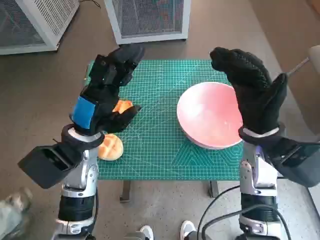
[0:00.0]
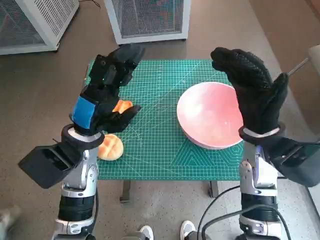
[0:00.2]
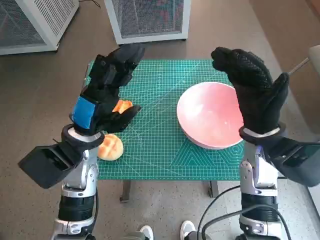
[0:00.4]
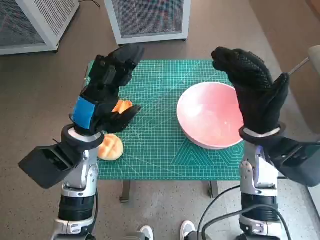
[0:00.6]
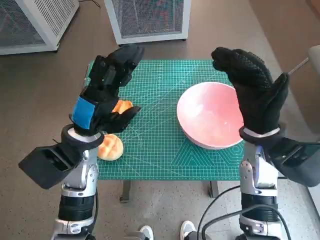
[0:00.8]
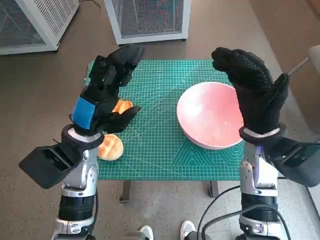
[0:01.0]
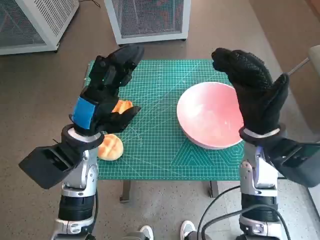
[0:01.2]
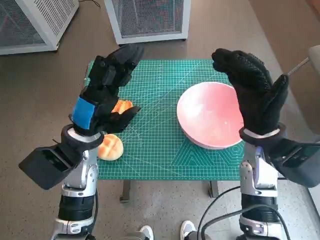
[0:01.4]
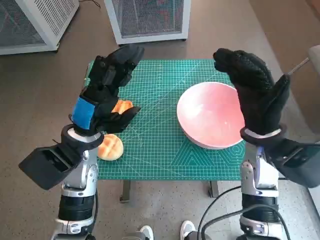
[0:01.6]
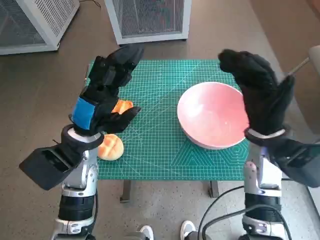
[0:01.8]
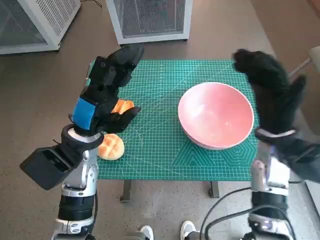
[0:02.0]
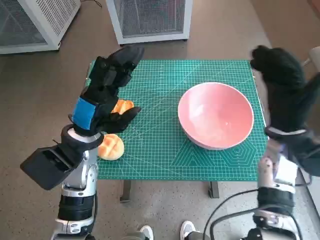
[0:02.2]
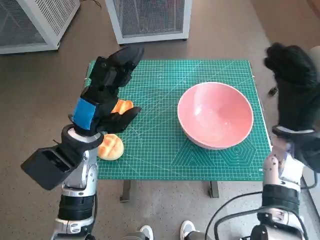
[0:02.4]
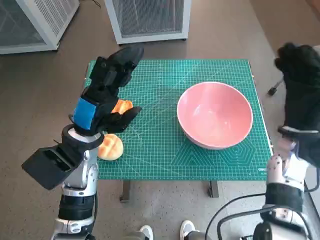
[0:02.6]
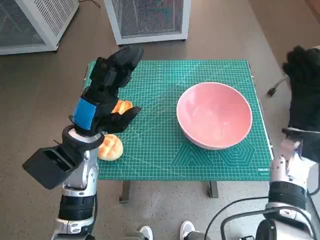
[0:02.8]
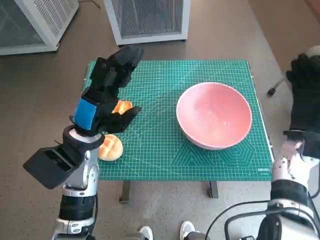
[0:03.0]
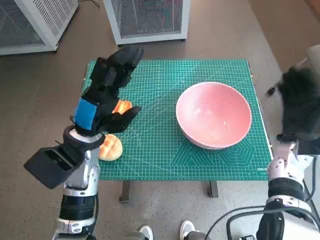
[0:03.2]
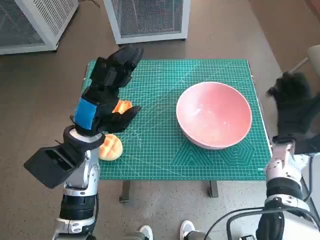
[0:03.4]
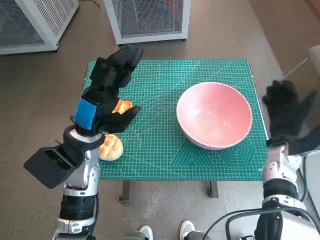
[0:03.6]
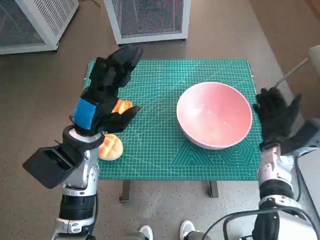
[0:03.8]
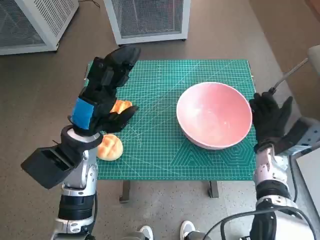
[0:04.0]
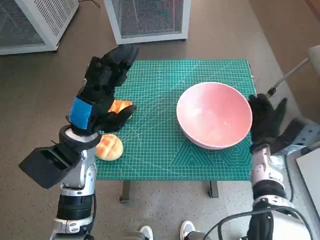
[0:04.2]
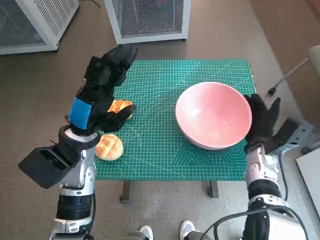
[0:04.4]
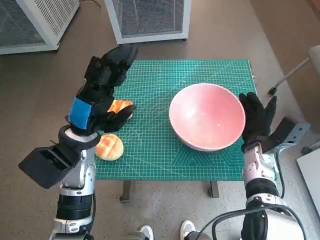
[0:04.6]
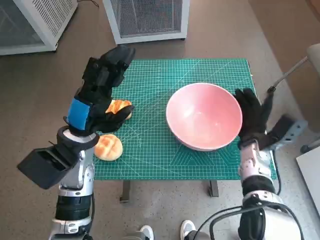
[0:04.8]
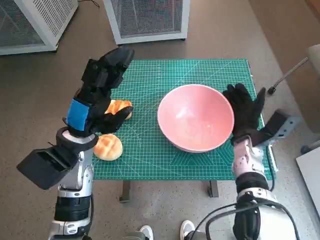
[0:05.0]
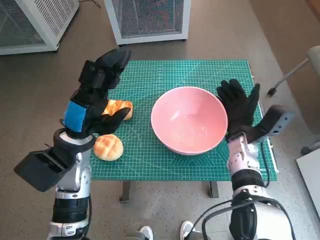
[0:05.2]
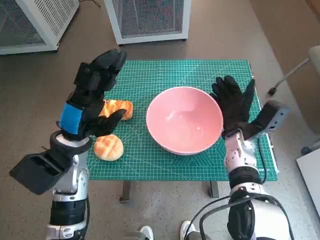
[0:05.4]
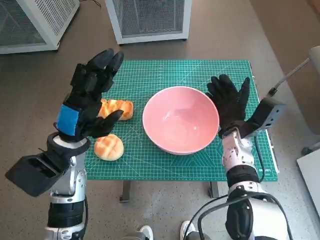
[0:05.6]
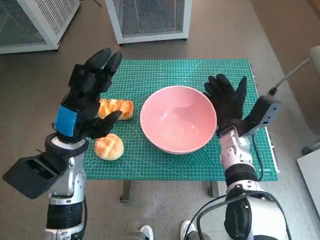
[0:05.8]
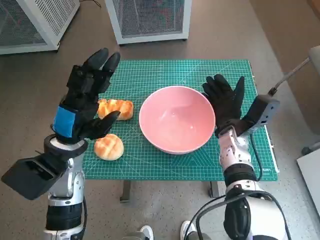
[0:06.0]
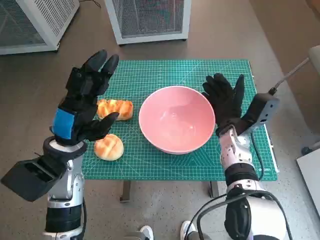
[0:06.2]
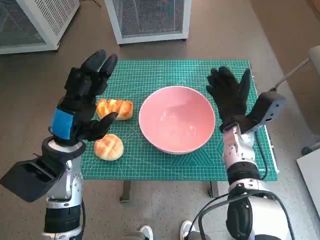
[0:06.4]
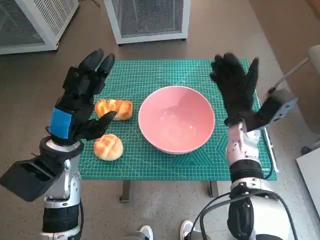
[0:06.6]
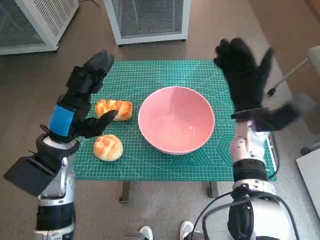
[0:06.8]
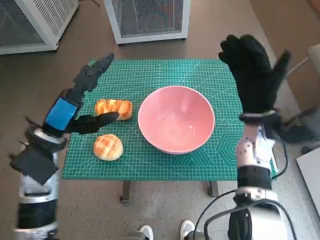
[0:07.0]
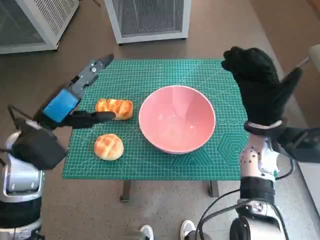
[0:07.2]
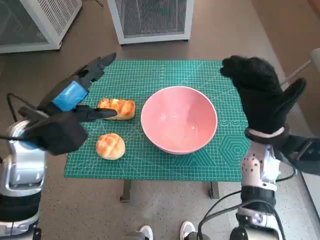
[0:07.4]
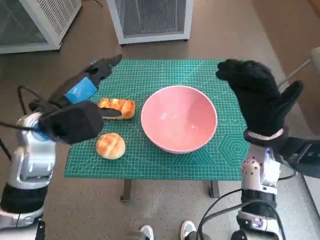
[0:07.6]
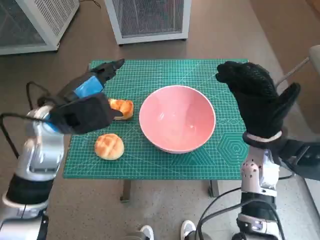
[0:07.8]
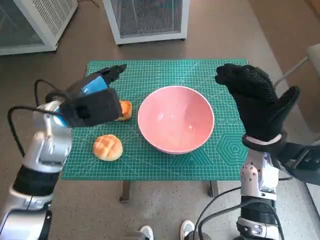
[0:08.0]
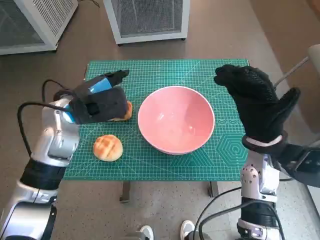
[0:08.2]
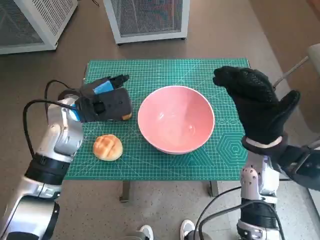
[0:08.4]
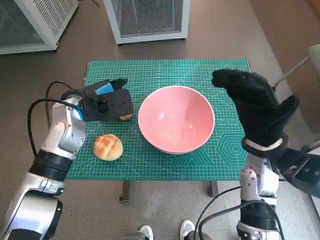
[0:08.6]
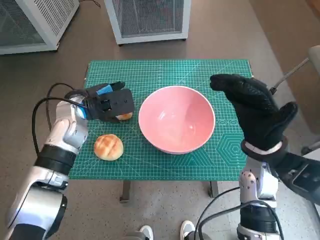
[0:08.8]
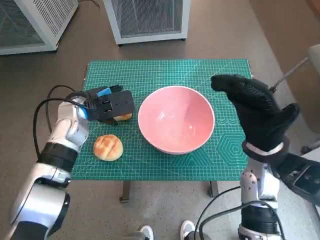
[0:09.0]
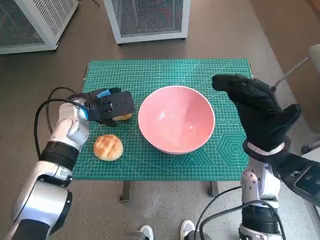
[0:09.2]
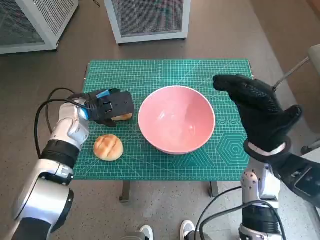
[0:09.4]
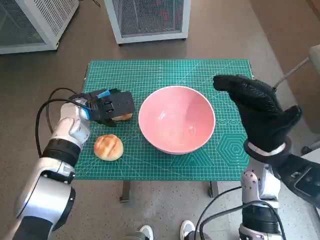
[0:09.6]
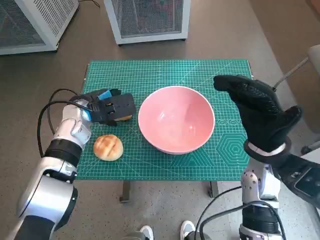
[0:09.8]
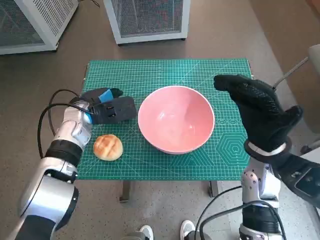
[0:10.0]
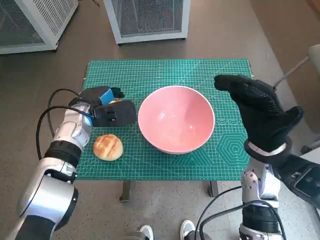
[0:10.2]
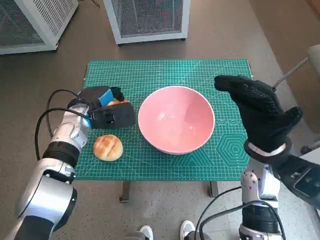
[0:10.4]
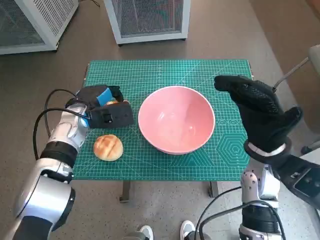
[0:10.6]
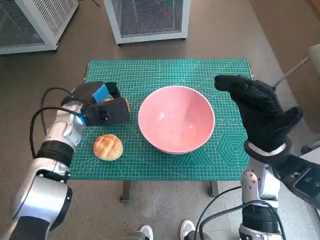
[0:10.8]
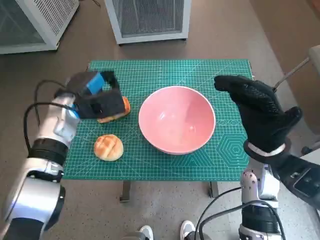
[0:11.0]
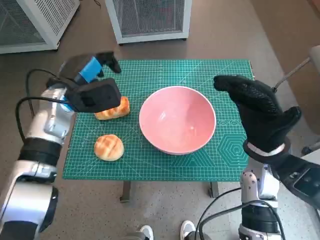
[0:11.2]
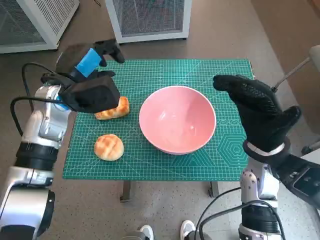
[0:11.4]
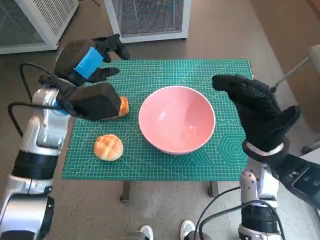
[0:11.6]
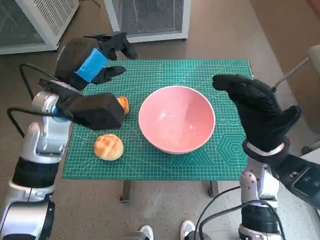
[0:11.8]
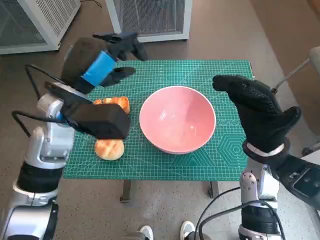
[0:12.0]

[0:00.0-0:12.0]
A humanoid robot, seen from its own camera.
Task of the whole recording: Push the bowl into the center of the table and put the bread into the bowl.
Step, 0:00.0 to 0:06.4: Move the pink bowl to the center of table with right hand.
0:01.6 to 0:03.0: The right hand shifts about 10 cm to the right.
0:03.0 to 0:04.4: The right hand shifts approximately 5 cm downward.
0:04.4 to 0:06.0: The right hand shifts approximately 5 cm to the left.
0:06.0 to 0:07.6: The two hands go some 5 cm upward.
0:07.6 to 0:09.0: The left hand heads forward and downward, covering about 10 cm.
0:09.0 to 0:10.4: The hands move only a little.
0:10.4 to 0:12.0: The left hand is displaced upward and backward by approximately 15 cm.

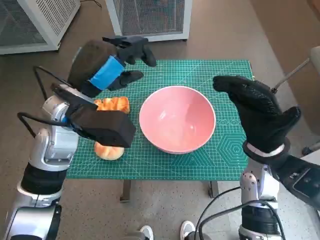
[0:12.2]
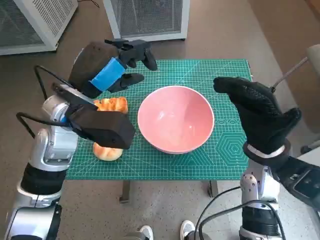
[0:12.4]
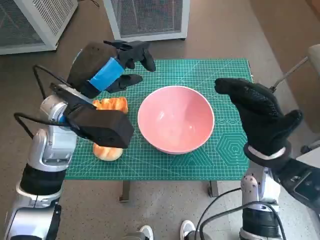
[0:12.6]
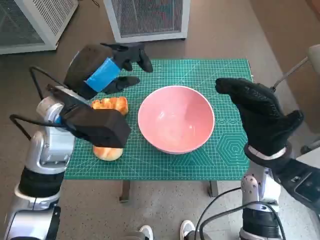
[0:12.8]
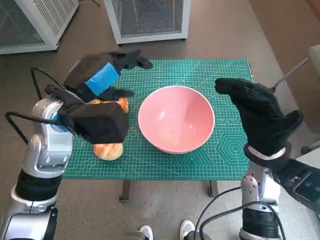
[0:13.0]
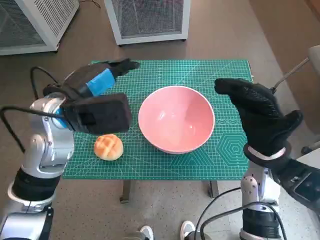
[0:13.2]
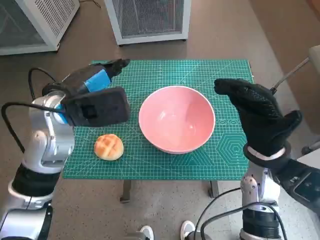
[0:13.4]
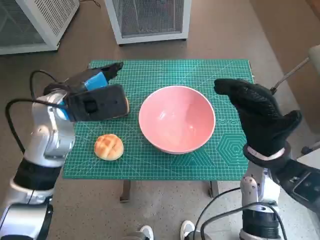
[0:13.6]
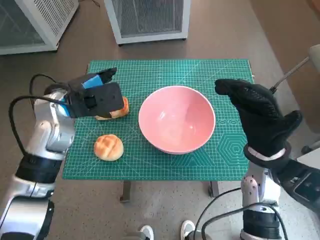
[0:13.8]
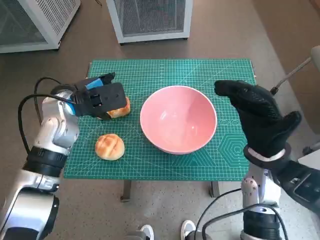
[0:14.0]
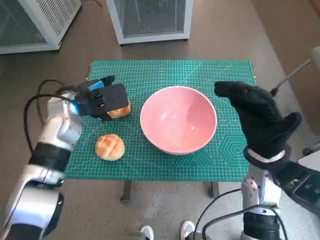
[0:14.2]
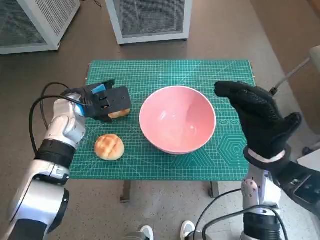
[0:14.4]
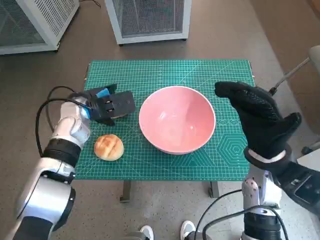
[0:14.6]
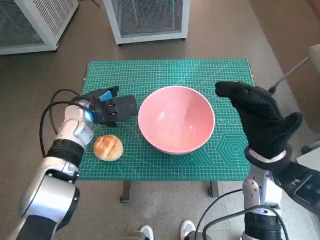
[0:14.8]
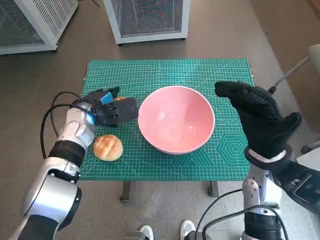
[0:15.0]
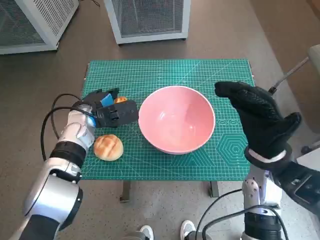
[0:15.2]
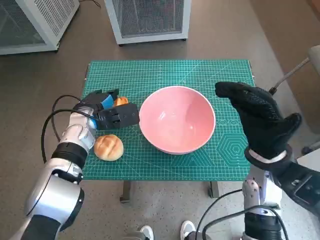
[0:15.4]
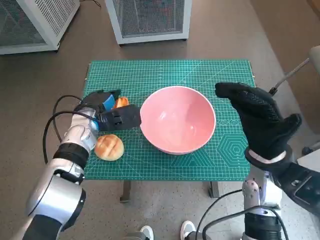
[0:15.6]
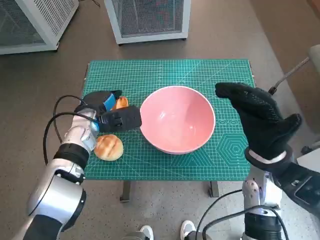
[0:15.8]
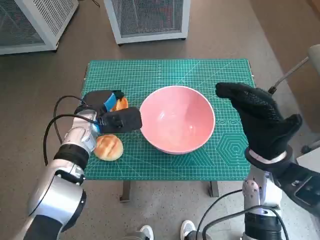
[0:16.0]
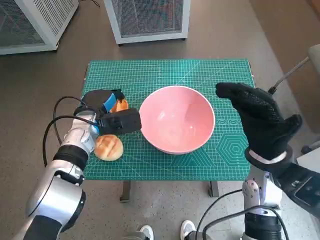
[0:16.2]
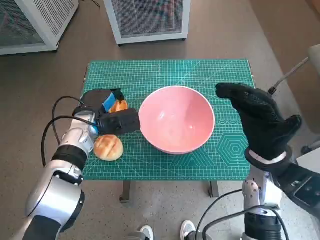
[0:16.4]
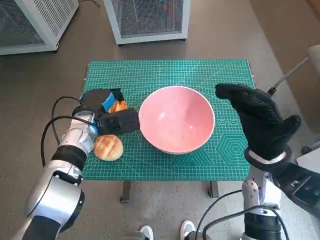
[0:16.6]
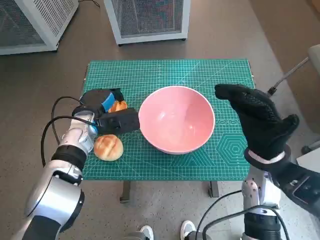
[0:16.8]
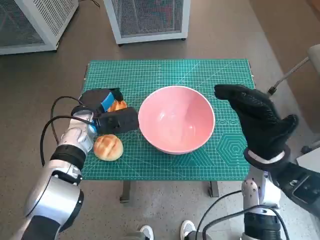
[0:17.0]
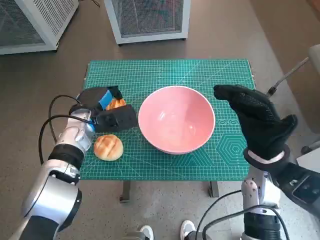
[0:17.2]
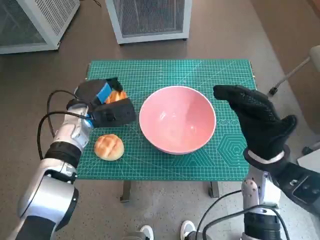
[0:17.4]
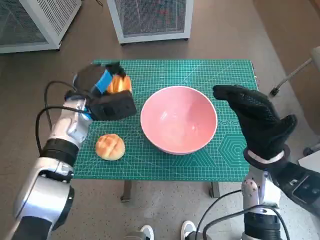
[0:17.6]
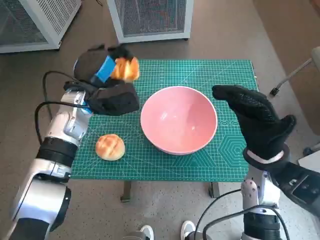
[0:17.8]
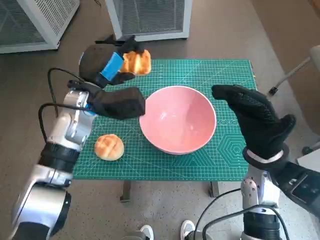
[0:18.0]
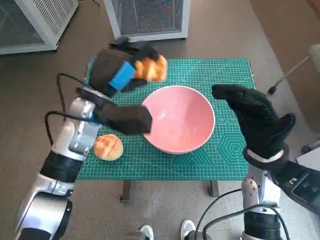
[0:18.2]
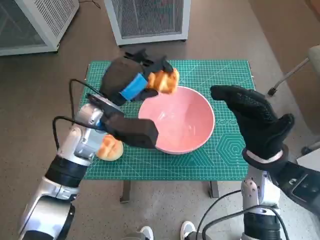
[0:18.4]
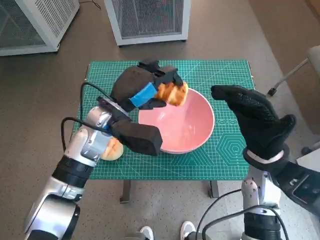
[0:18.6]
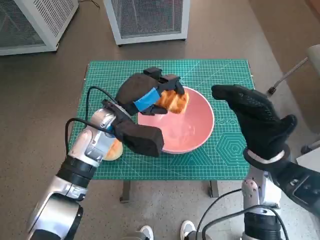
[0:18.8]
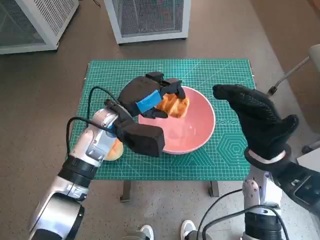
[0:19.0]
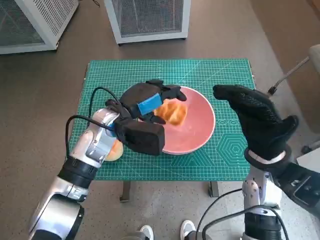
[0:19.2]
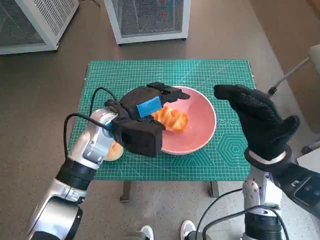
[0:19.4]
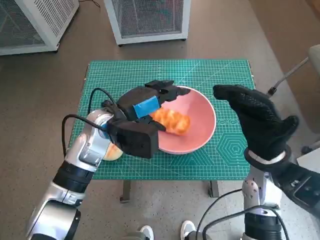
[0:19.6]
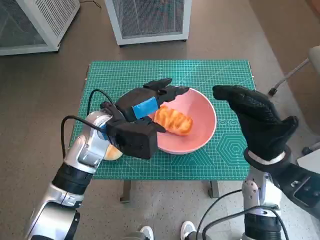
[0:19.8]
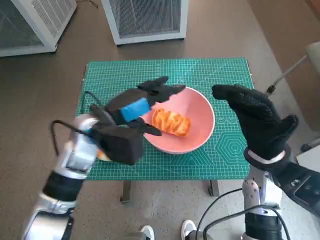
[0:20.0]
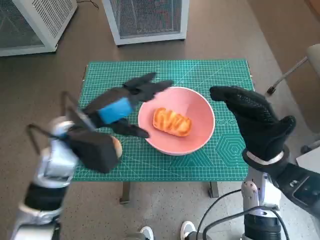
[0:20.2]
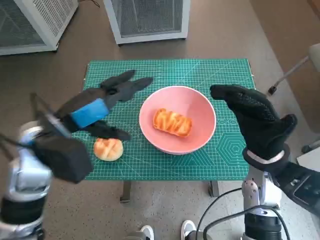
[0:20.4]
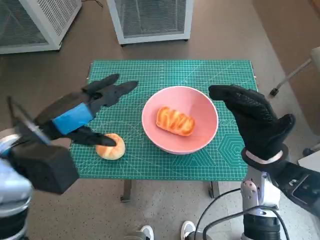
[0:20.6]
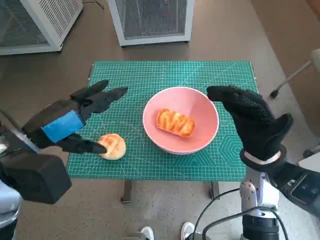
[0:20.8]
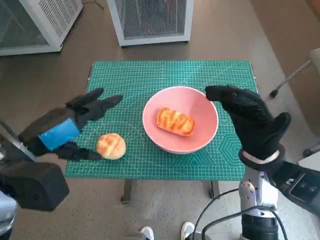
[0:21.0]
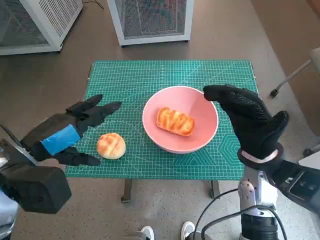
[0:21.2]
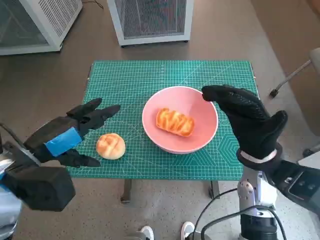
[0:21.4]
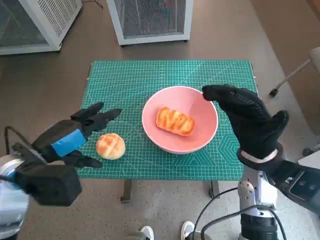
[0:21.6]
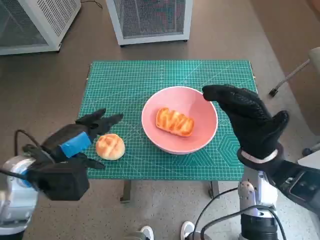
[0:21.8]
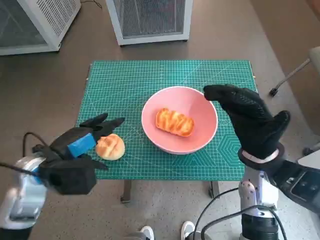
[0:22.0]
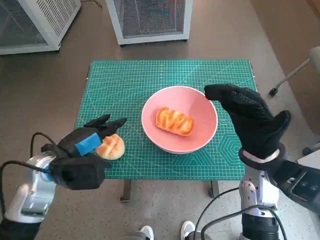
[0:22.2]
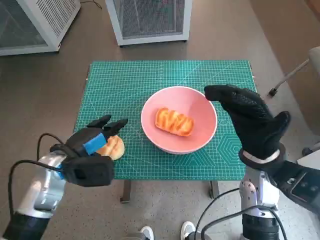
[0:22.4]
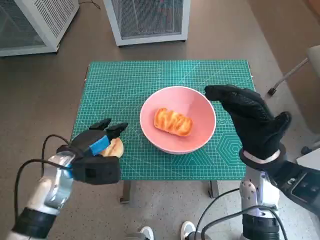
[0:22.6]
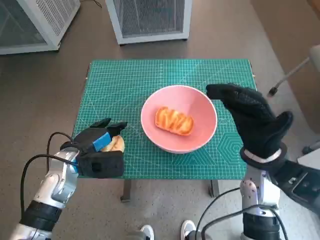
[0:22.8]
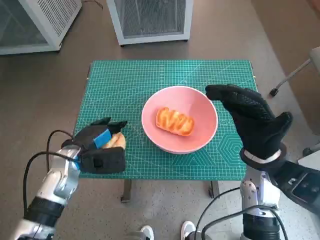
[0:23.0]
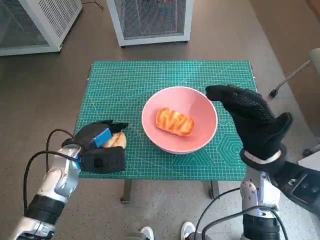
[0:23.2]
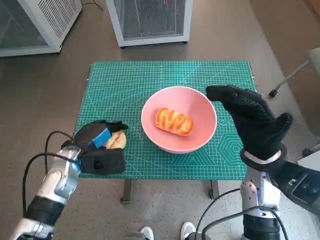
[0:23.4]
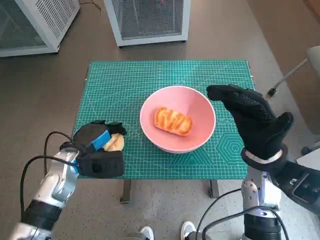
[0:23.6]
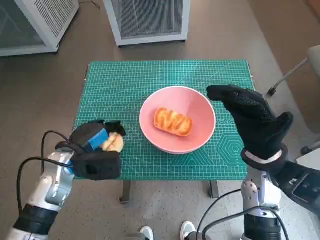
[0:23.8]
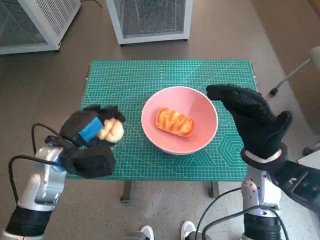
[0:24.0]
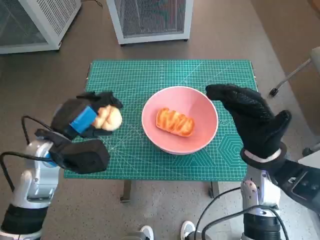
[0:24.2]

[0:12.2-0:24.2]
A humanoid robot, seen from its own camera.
Task of the whole recording: Push the bowl into the center of the table and put the bread into the bowl.
Step, 0:12.2 to 0:16.0: Grasp the long bread with left hand.
Step, 0:16.2 to 0:19.4: Place the long bread in pink bowl with left hand.
Step, 0:19.6 to 0:22.8: Grasp the round bread with left hand.
0:12.2 to 0:13.8: The left hand ends up roughly 5 cm from where it was.
0:13.8 to 0:15.2: The left hand goes about 10 cm downward.
0:15.2 to 0:16.6: The hands move only a little.
0:16.6 to 0:18.2: The left hand travels upward by approximately 10 cm.
0:19.8 to 0:21.2: The left hand moves backward, to the left and upward, roughly 15 cm.
0:21.2 to 0:22.6: The left hand shifts about 10 cm downward.
0:22.6 to 0:24.2: The left hand shifts approximately 5 cm upward.
